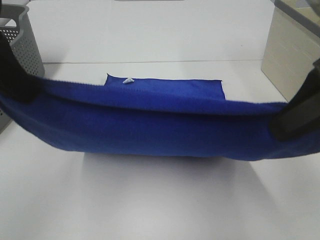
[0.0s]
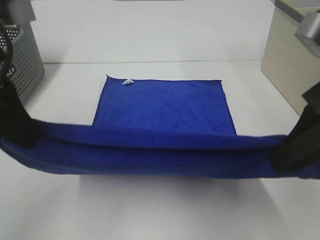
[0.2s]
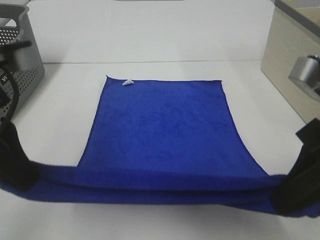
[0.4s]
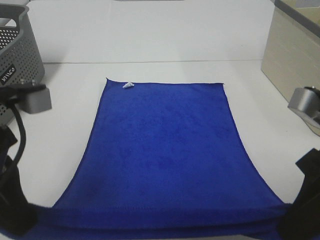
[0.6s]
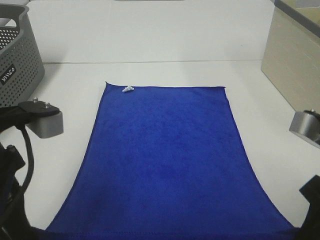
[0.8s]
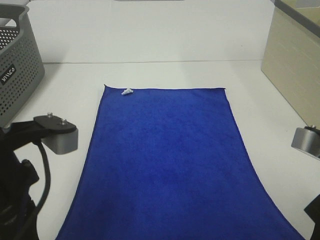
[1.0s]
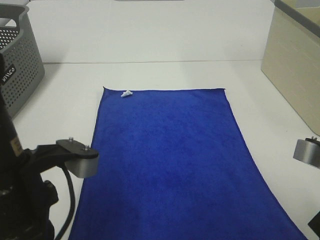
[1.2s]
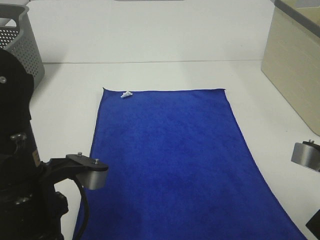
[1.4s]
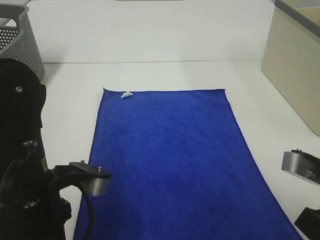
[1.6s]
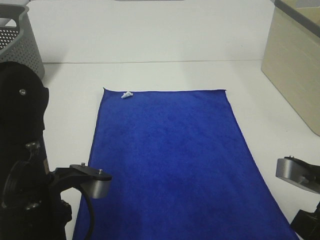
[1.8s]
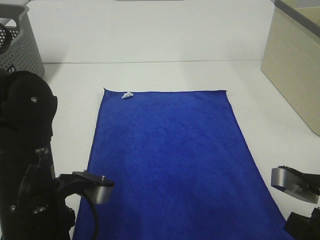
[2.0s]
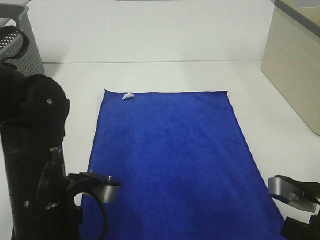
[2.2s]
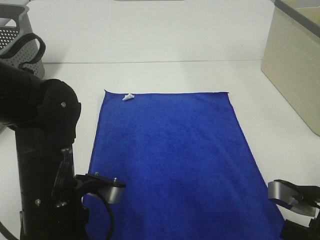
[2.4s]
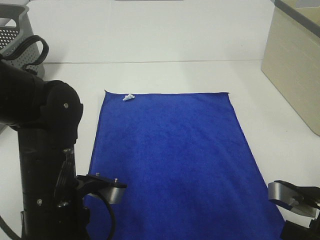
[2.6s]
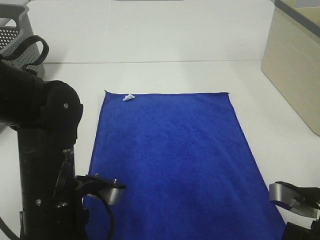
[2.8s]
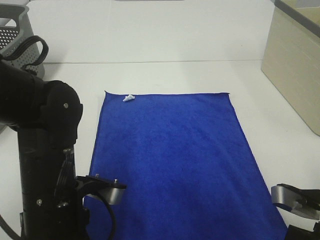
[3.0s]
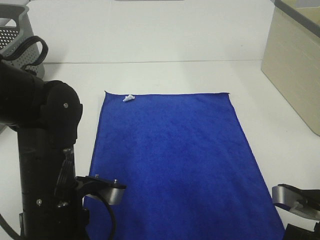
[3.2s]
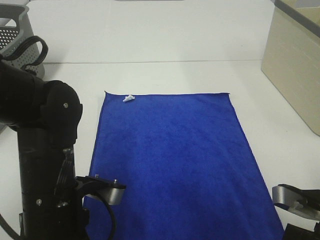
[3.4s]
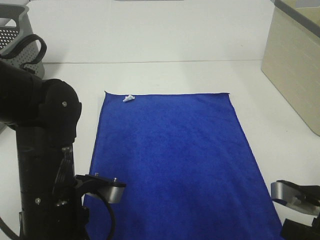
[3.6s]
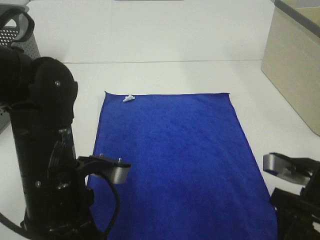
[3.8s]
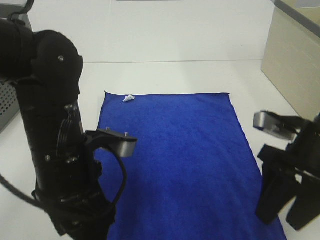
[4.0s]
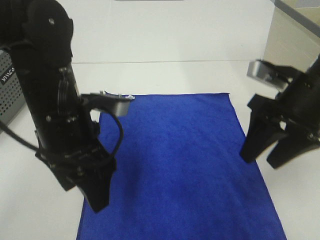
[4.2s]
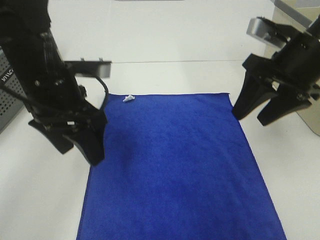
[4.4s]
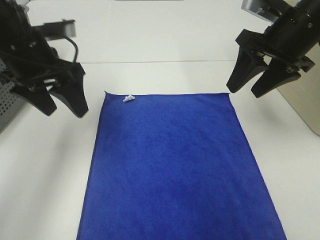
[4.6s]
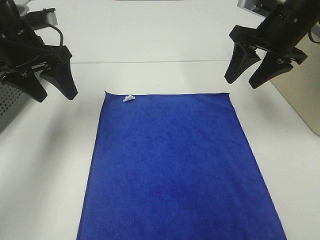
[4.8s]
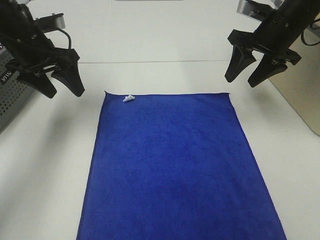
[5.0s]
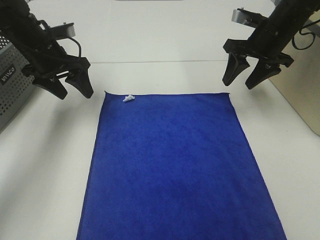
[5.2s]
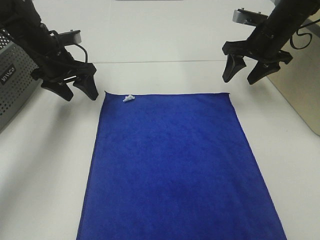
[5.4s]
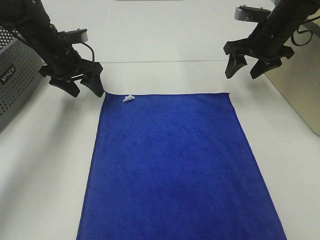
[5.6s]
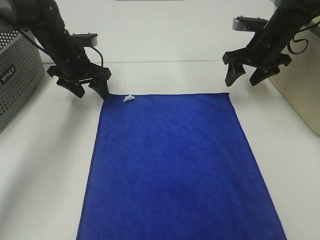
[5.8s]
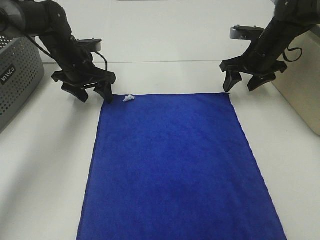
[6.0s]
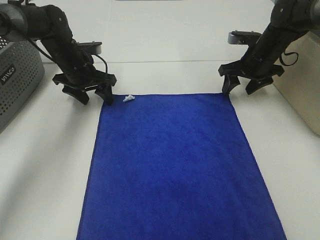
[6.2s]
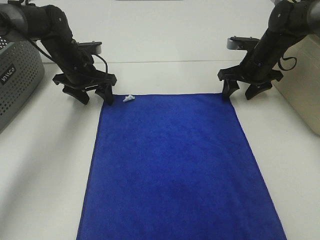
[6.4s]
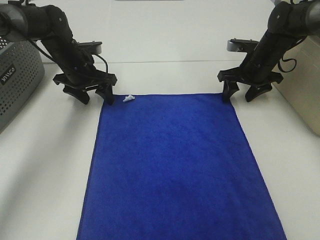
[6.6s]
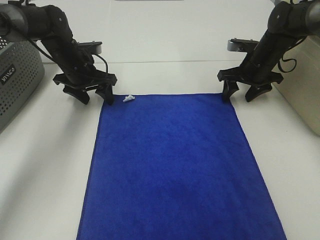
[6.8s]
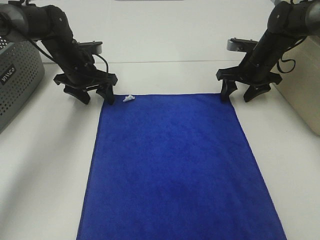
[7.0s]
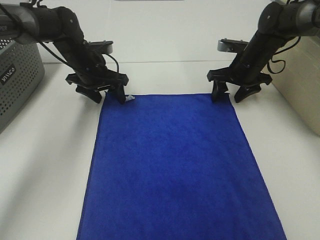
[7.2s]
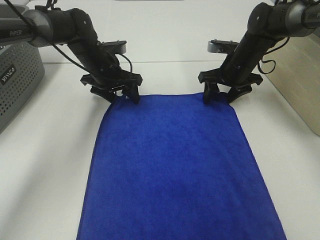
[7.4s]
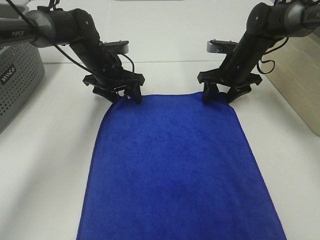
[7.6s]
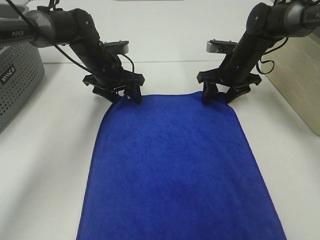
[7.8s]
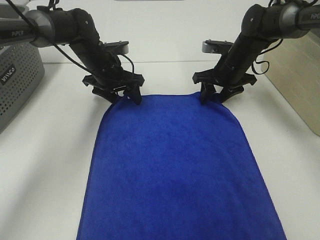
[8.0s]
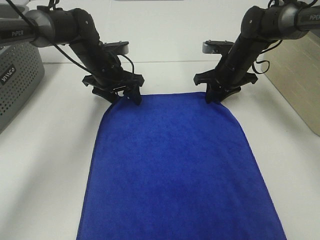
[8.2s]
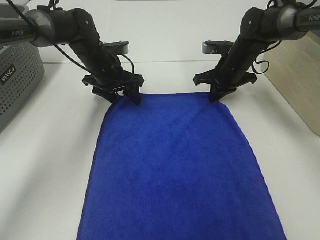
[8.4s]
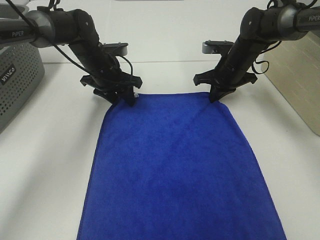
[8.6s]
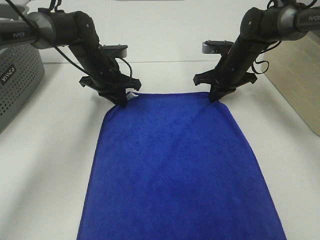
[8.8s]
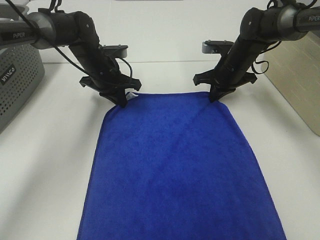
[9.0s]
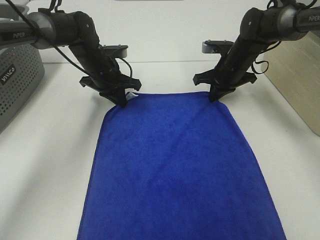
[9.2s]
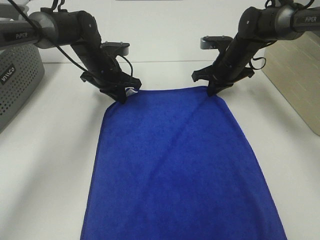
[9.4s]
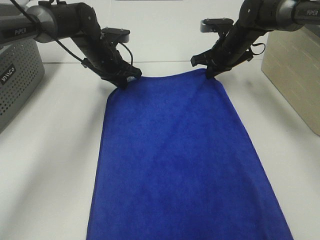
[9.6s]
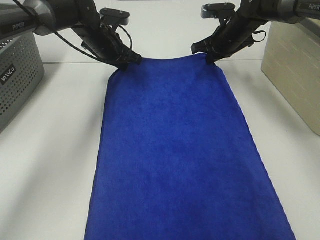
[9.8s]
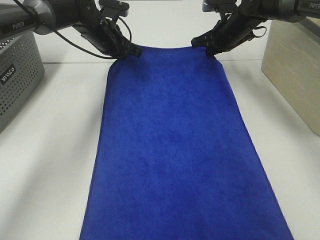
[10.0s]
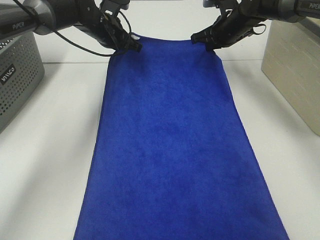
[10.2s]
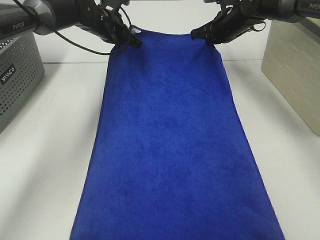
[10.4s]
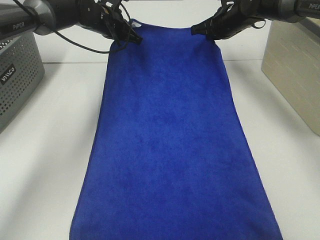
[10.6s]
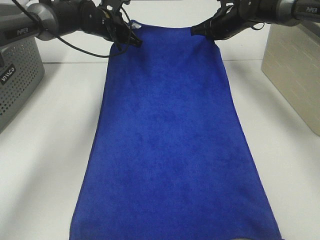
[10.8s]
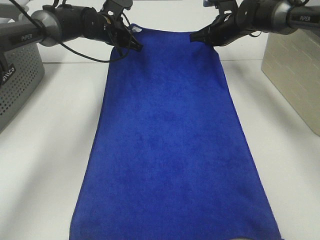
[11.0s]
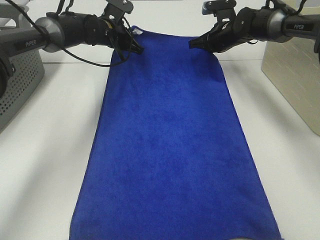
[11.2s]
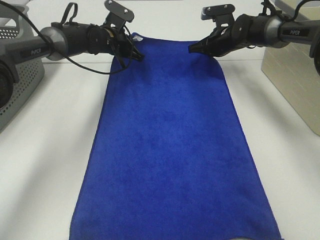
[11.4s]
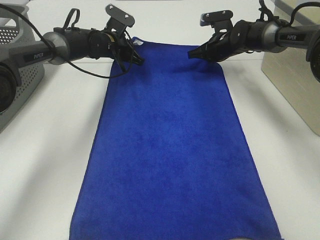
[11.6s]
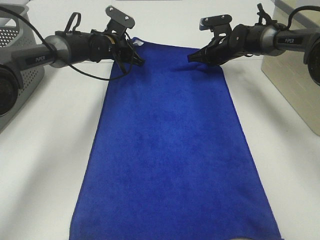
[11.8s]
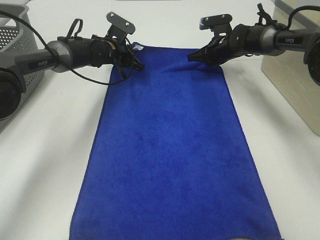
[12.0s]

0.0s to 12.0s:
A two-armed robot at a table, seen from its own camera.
Task of the whole recording: Remove the towel and place it.
Step, 0.0s to 5.8s: Left hand:adjust the blue towel.
Step, 0.0s to 5.8s: Right hand:adjust the blue towel.
0.0s to 1.6s: The grippers both shift downward and backward by roughly 15 cm.
1.6s to 3.0s: The right gripper opens up.
3.0s to 4.4s: The two grippers go roughly 20 cm forward and upward. The left gripper opens. The right gripper opens its fingers.
4.4s to 6.0s: Both grippers move forward and downward, some 20 cm.
6.0s to 7.6s: The left gripper is displaced to the right by roughly 5 cm, while the right gripper ends up roughly 5 cm from where it was.
7.6s to 9.0s: The right gripper closes up. Meanwhile the left gripper closes.
9.0s to 10.4s: The two grippers go approximately 10 cm upward and forward.
10.4s to 12.0s: Both grippers travel together downward, roughly 10 cm.

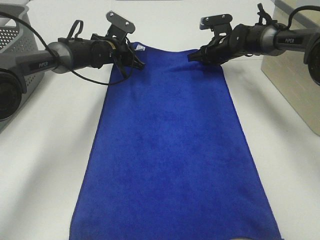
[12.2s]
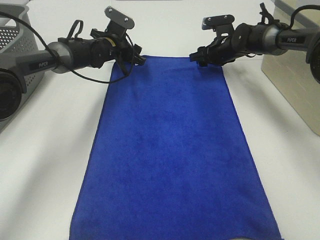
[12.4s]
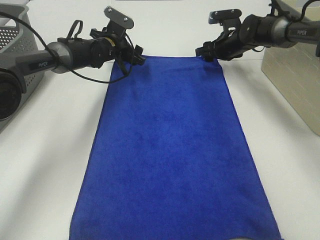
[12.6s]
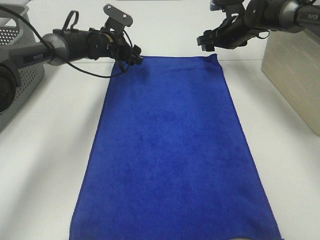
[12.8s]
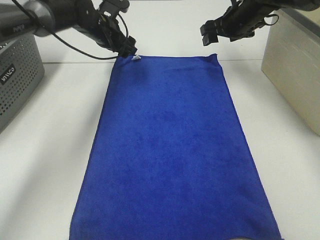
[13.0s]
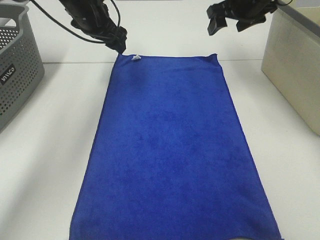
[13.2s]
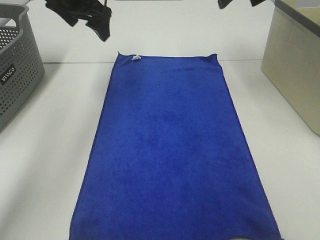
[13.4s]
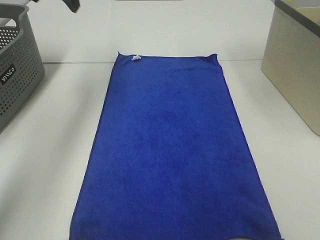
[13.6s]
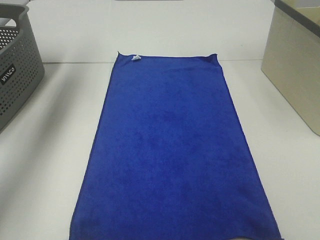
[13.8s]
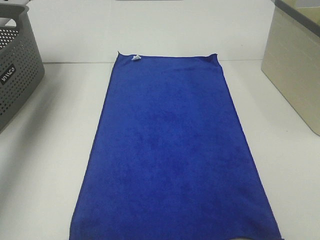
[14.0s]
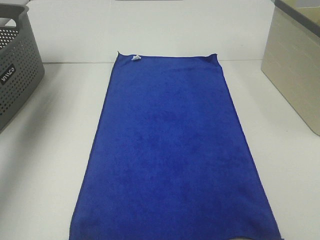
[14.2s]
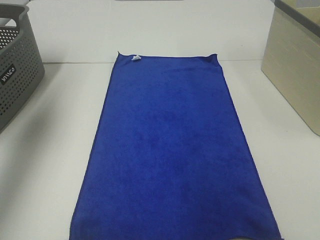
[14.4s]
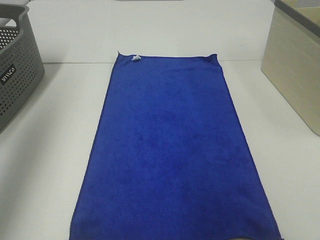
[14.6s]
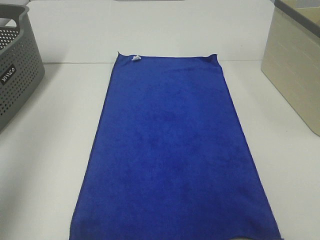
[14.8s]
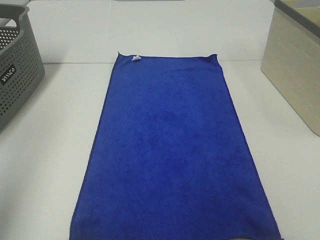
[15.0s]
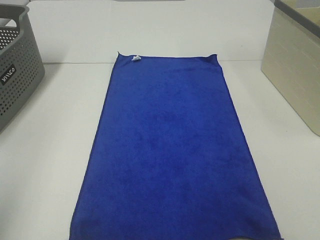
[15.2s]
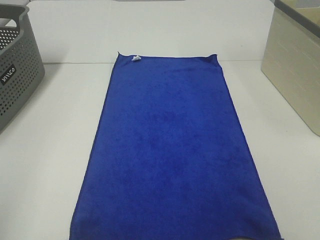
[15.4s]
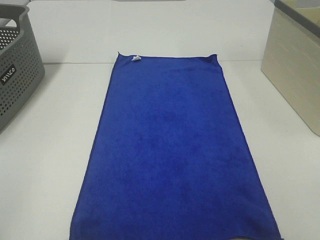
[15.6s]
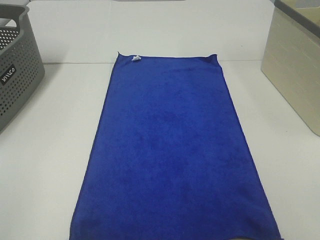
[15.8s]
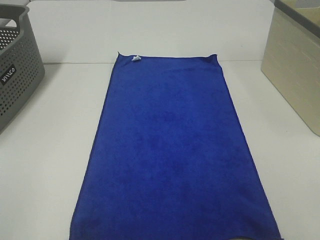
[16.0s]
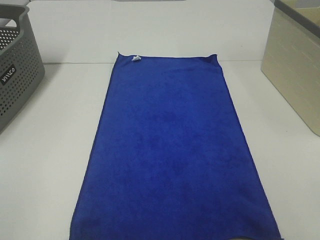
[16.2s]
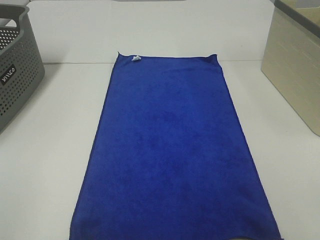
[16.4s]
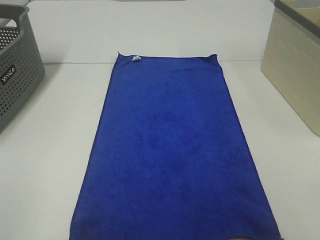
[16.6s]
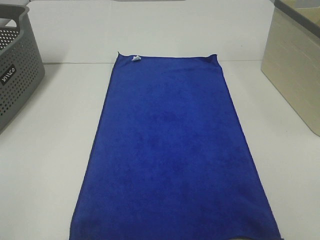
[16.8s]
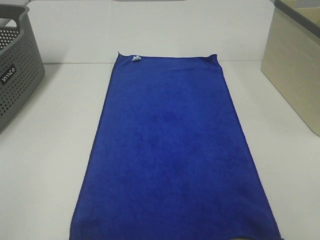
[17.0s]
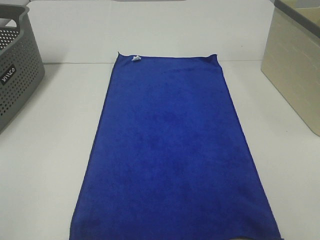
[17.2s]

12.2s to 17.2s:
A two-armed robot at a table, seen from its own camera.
Task of the whole recording: Remove the towel and place it.
12.2s to 13.8s: The left gripper shifts some 30 cm upward and to the left, and opens its fingers, while the right gripper shifts approximately 35 cm upward and backward, and opens up.
13.8s to 15.6s: The left gripper shifts roughly 50 cm backward.

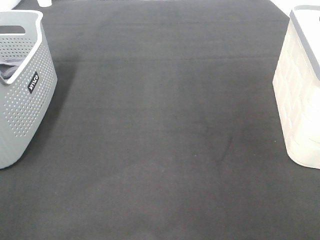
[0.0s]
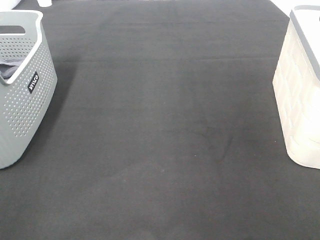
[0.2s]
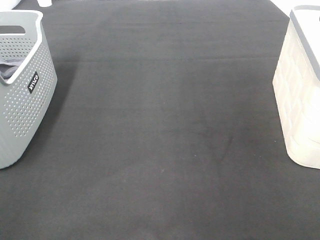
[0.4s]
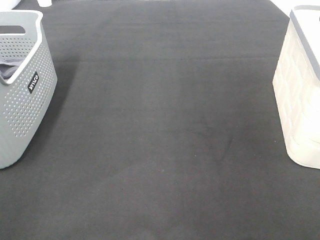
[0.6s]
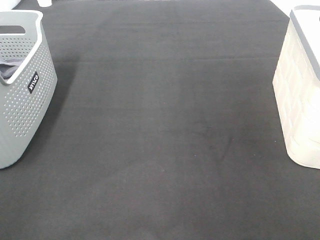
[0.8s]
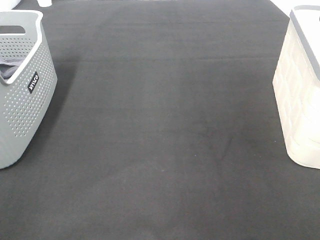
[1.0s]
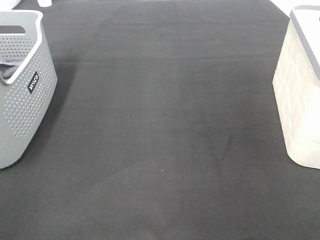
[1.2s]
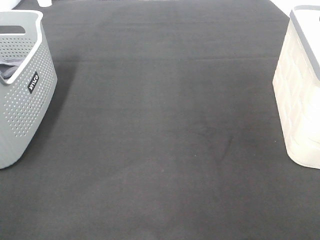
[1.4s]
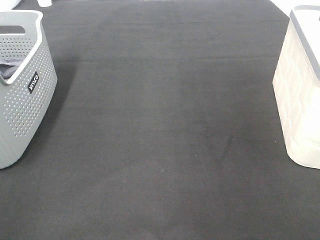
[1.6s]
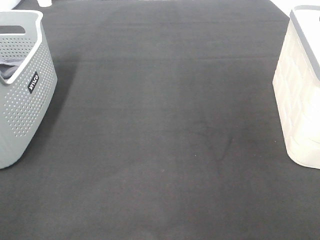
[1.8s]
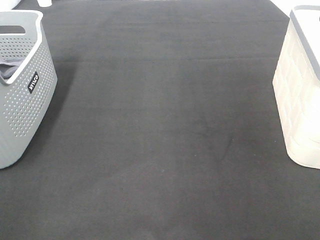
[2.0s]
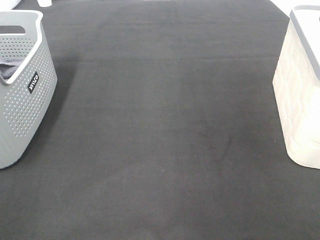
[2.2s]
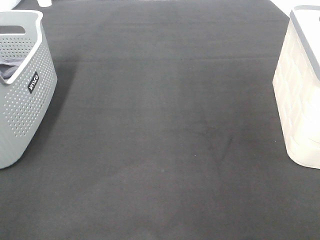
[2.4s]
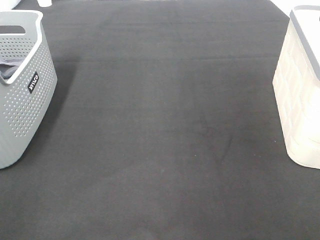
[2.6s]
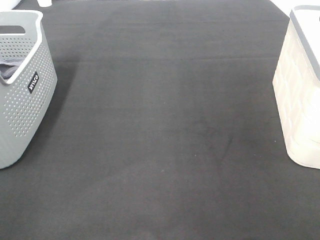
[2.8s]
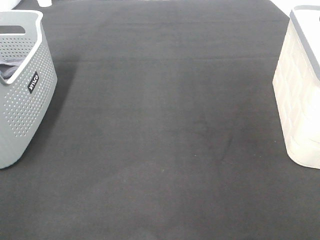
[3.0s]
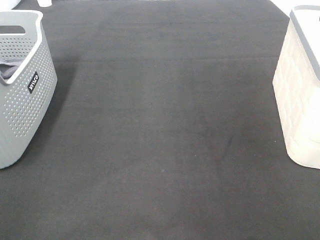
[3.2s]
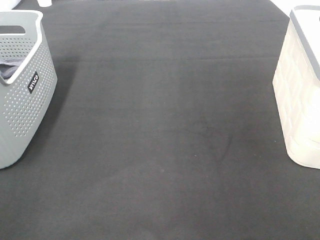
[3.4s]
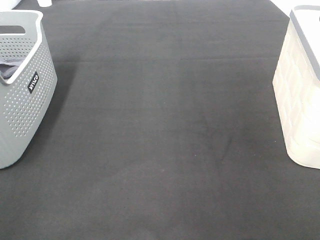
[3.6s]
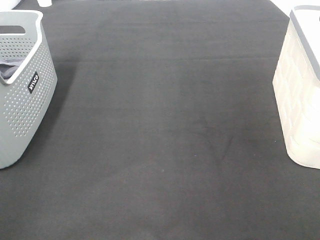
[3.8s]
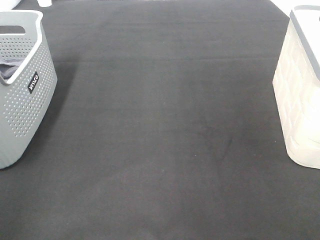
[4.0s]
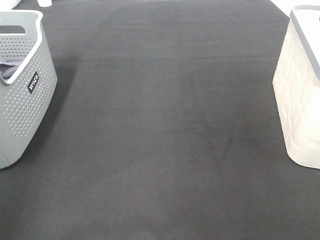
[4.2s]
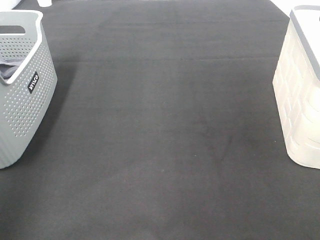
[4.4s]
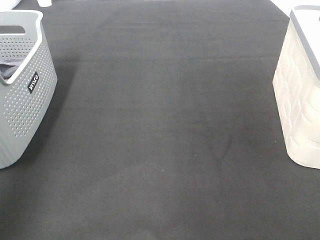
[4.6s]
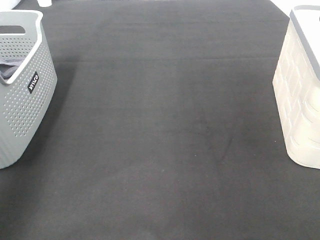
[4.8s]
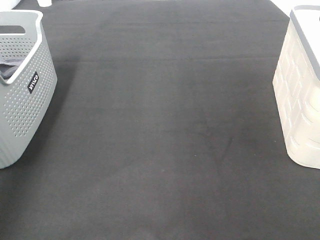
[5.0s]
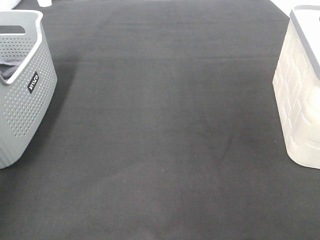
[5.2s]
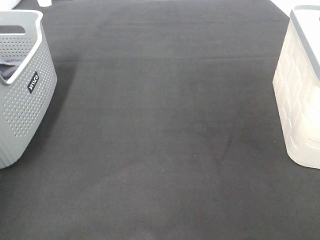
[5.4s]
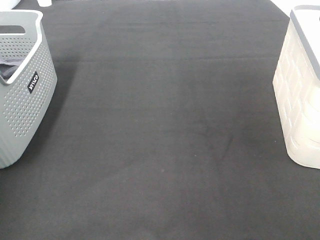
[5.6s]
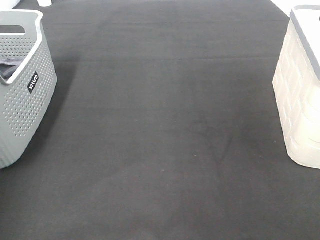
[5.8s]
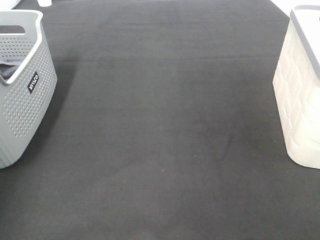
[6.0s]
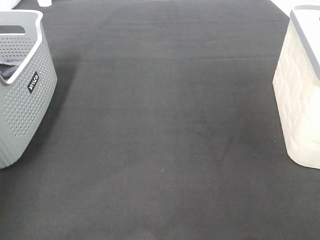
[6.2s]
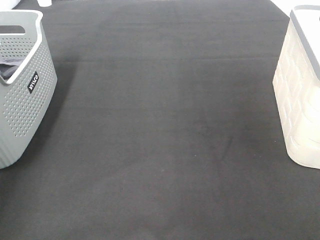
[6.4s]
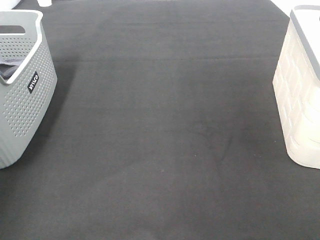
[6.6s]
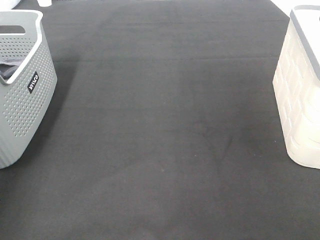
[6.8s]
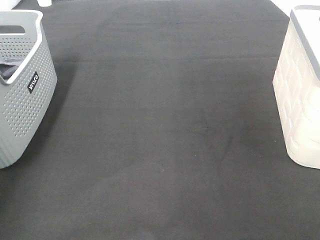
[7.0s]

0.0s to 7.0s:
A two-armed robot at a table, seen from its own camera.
Task of the whole recording: Remove the towel and place it.
0.0s to 2.8s: Neither gripper changes place.
